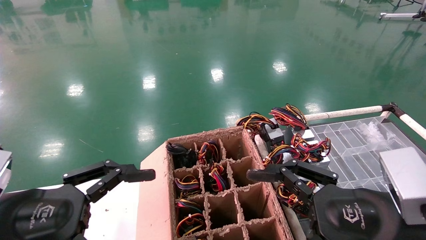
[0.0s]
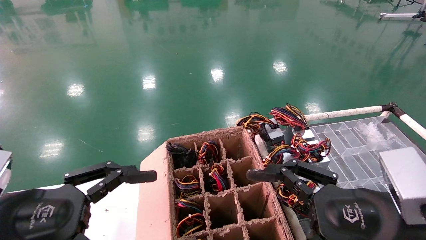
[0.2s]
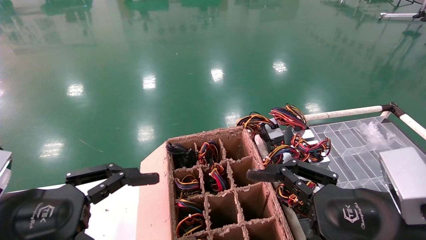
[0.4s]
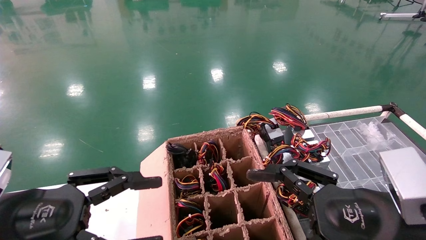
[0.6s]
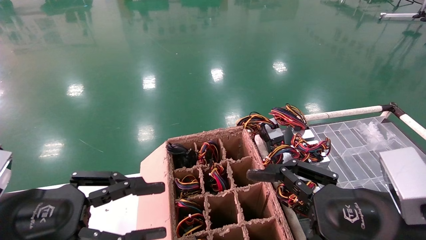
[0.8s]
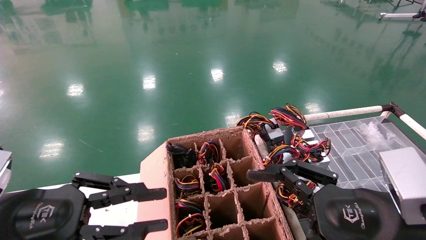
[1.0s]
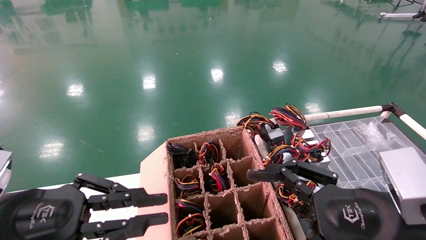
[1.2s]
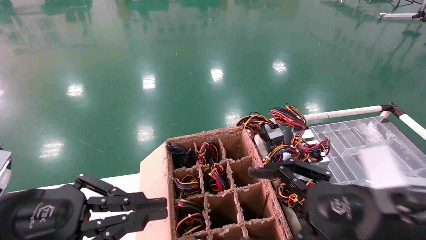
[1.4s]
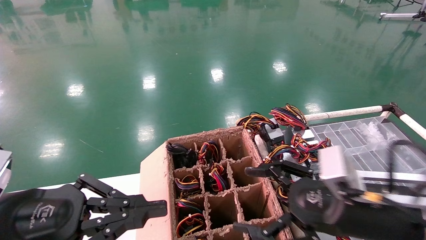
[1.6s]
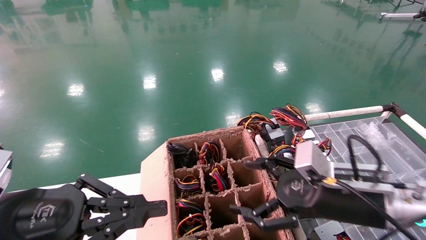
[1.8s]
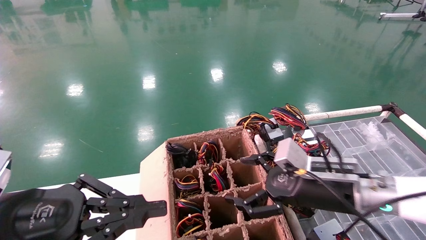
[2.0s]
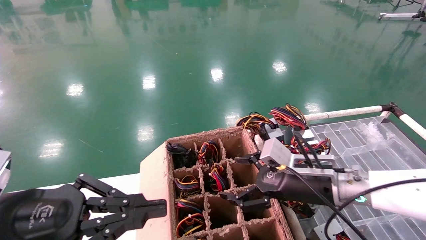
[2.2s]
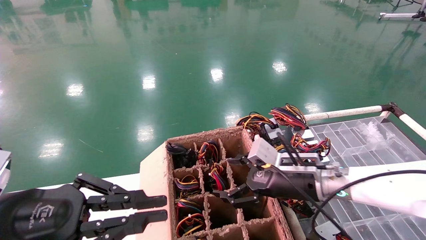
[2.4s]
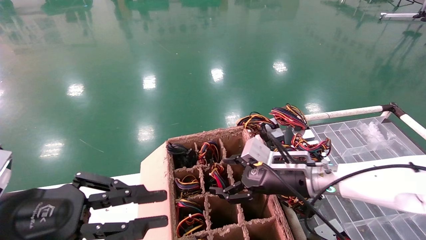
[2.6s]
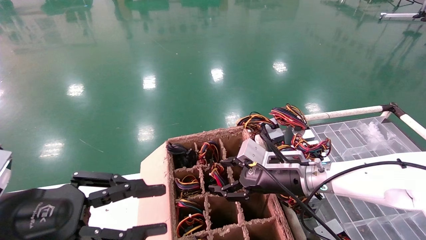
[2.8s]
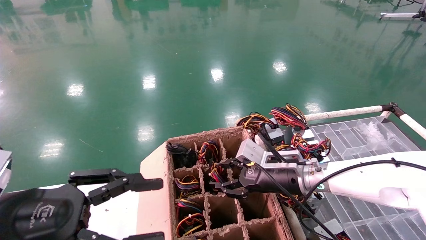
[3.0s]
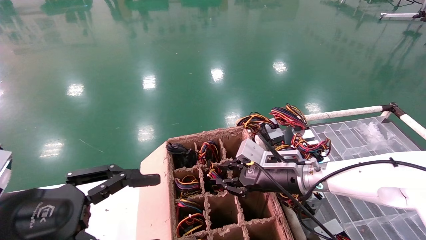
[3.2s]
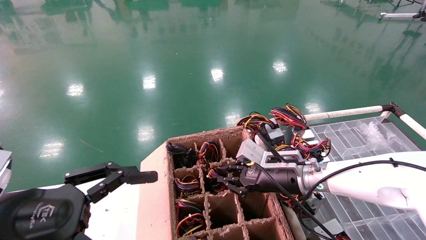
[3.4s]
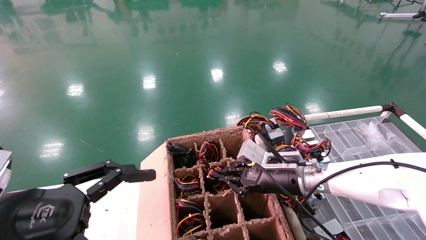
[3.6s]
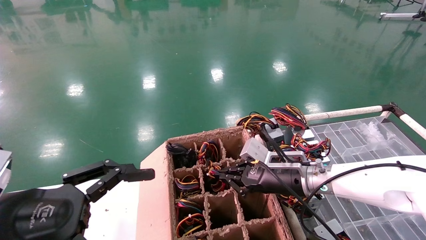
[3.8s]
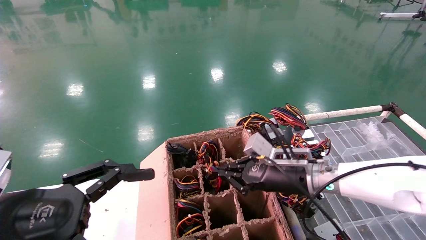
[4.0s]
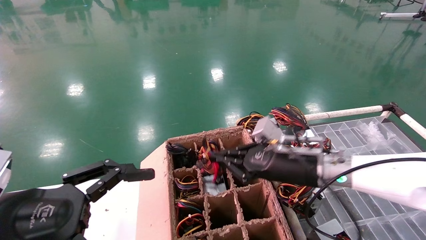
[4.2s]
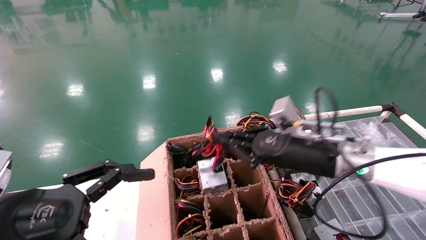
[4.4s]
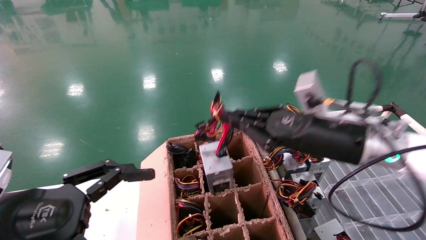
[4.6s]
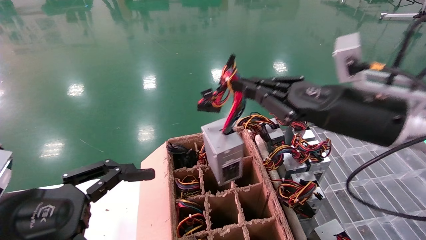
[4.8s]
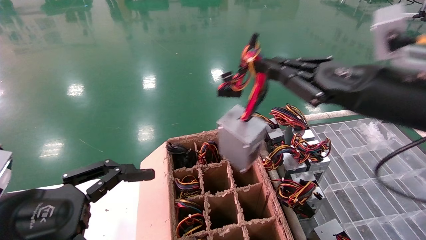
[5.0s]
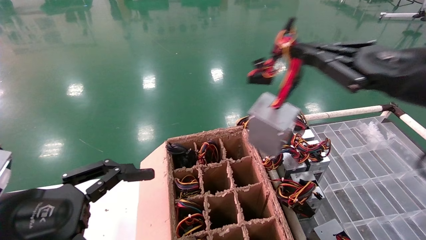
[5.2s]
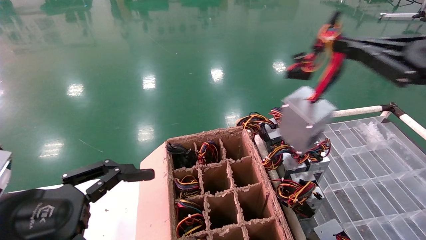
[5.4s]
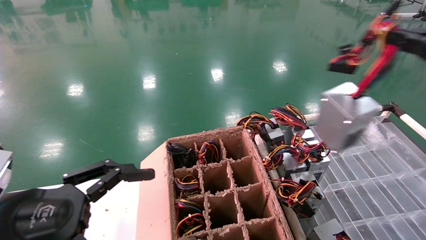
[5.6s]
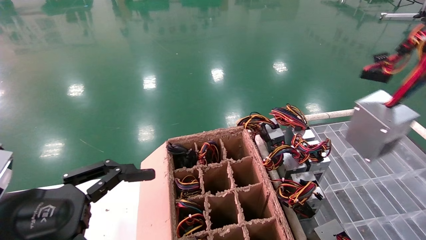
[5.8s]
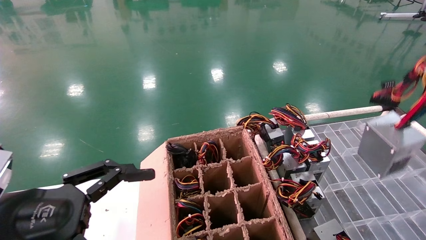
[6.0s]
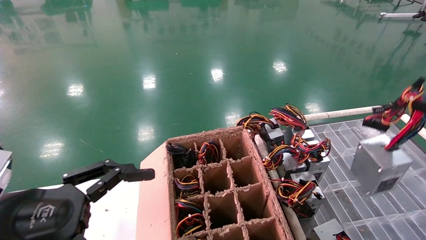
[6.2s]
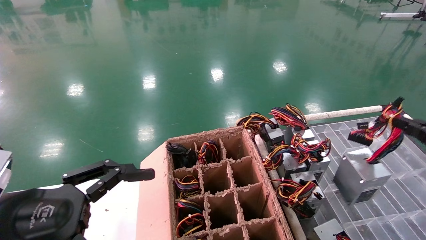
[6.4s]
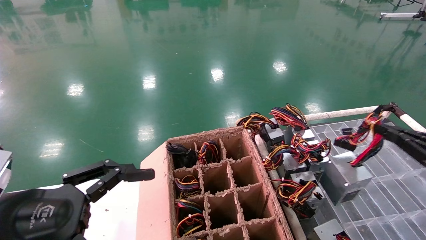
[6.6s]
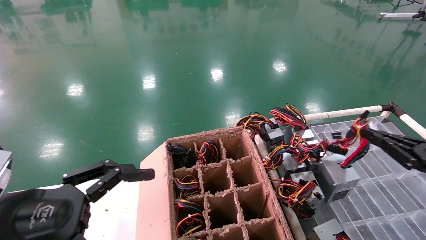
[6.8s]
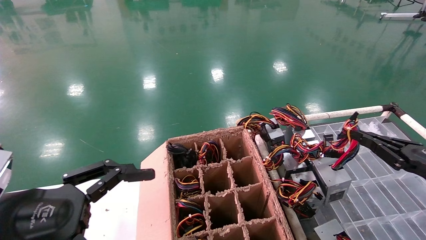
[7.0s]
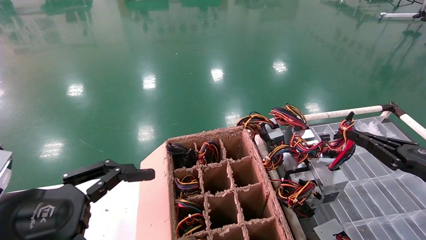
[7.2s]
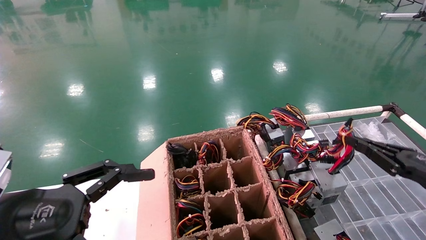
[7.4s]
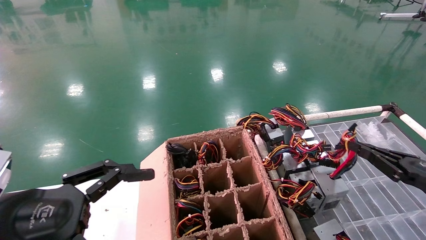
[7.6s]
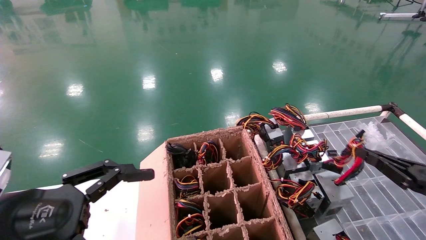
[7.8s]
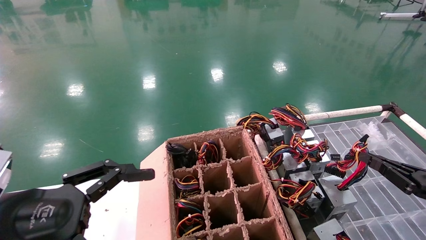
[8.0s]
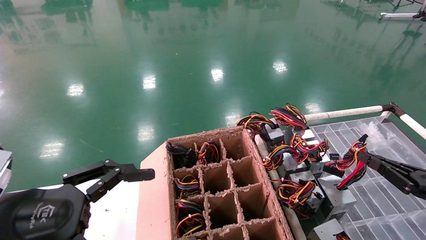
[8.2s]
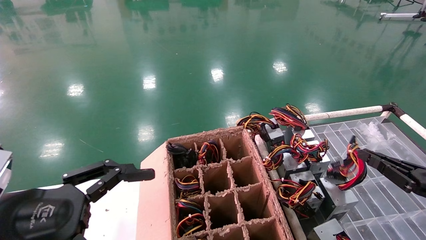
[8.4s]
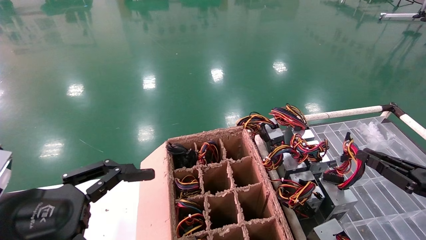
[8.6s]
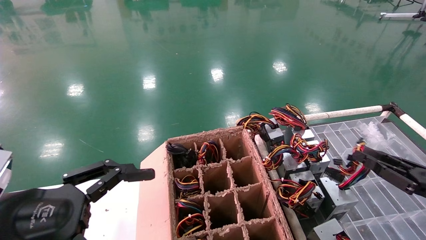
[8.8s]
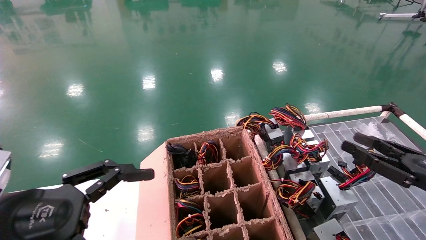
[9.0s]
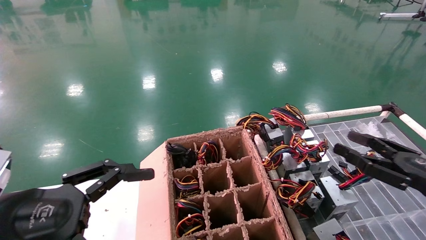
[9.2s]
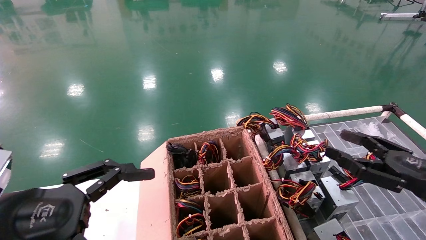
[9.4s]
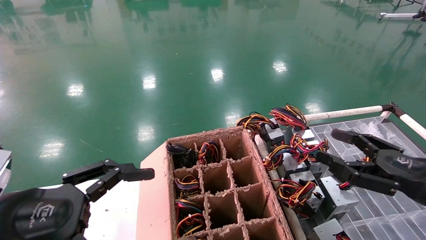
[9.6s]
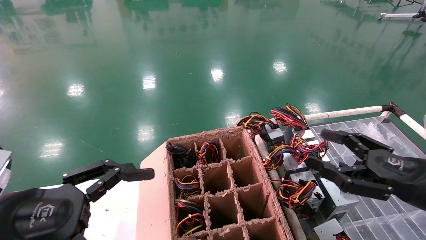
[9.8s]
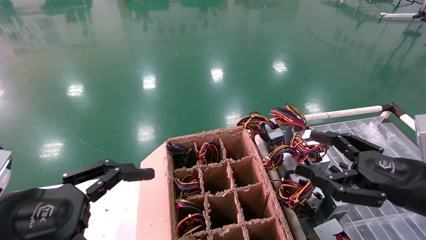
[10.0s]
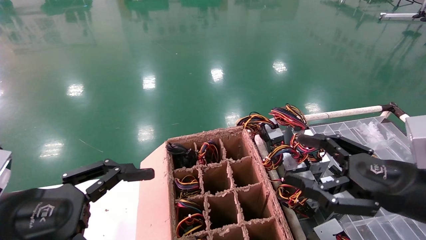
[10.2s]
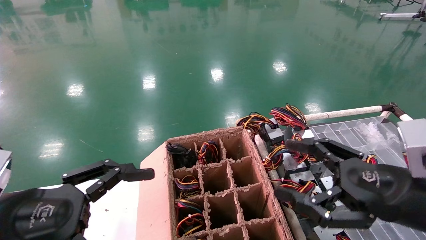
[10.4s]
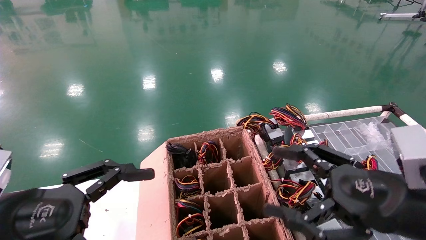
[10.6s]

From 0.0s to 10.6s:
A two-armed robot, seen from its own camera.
Step, from 1.6s to 3.6s: Grab and lift the power supply from the large box.
Step, from 3.8s to 8.4s: Place the power supply on the operating table.
From 0.0s to 1.6s: The left gripper closes up, while the right gripper goes some 5 cm forward.
From 1.6s to 3.0s: The right gripper shifts about 15 cm forward and to the left, and closes up. Meanwhile the left gripper opens.
From 3.0s to 4.6s: The left gripper opens; the right gripper heads upward and backward, covering some 15 cm, and closes.
From 4.6s to 6.0s: The right gripper moves to the right and backward, about 30 cm.
From 6.0s to 7.6s: The right gripper heads downward and forward, covering about 15 cm.
From 7.6s to 9.0s: The right gripper opens up.
From 9.0s to 10.6s: The right gripper goes some 15 cm to the left, and opens.

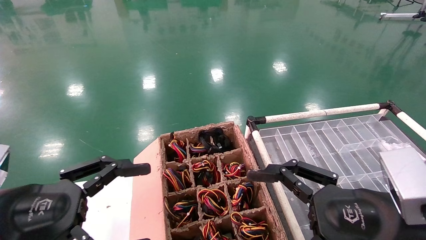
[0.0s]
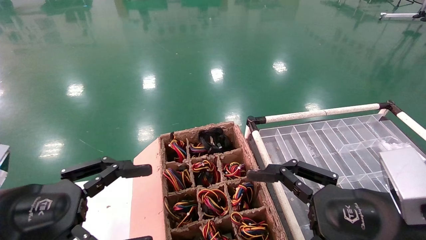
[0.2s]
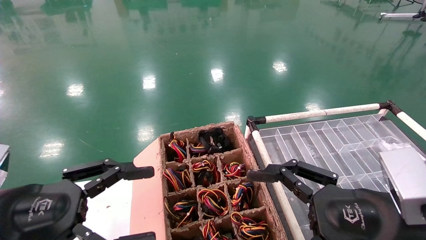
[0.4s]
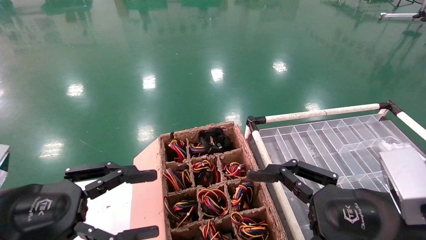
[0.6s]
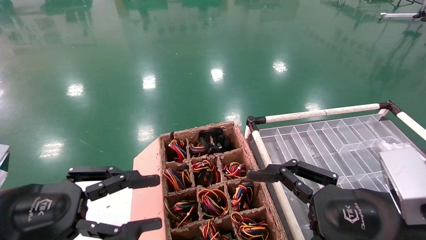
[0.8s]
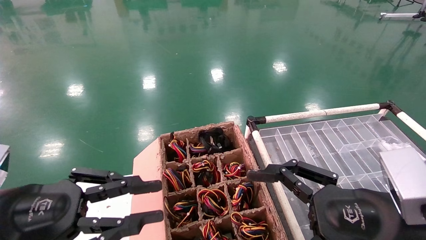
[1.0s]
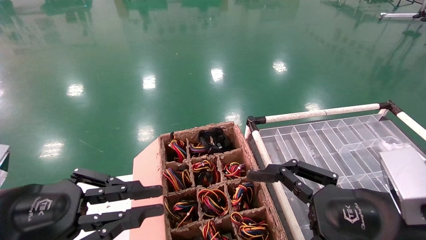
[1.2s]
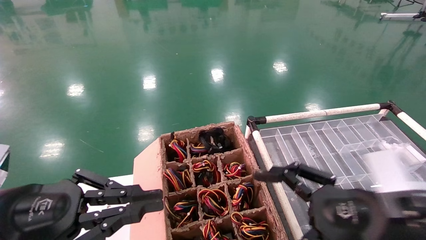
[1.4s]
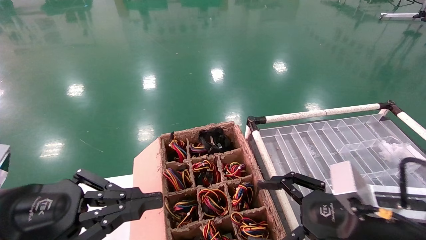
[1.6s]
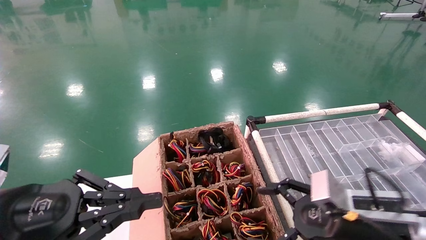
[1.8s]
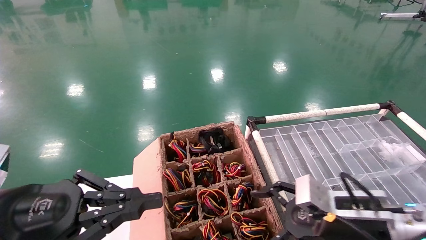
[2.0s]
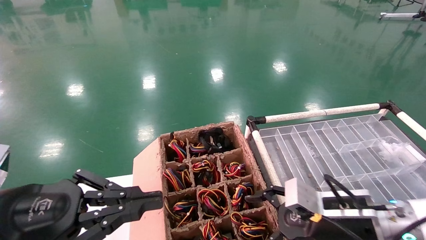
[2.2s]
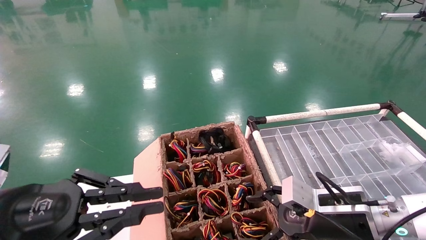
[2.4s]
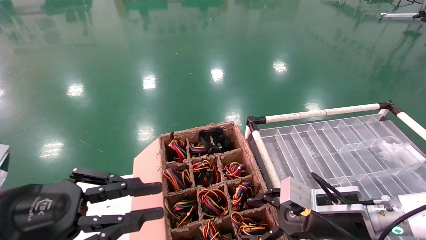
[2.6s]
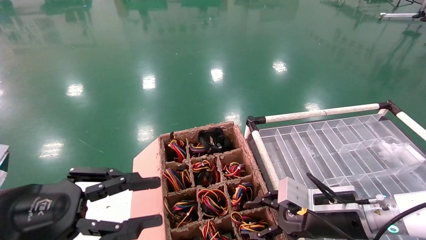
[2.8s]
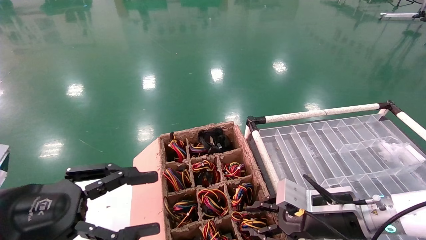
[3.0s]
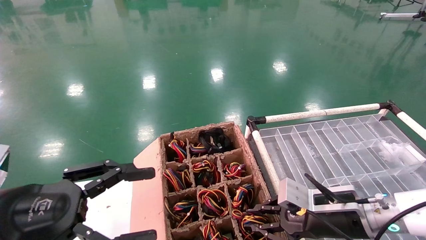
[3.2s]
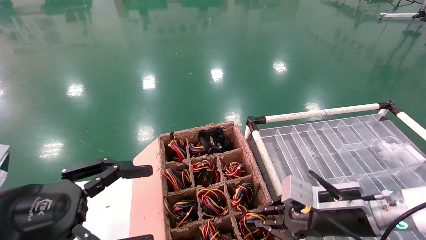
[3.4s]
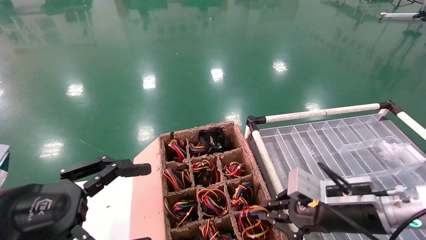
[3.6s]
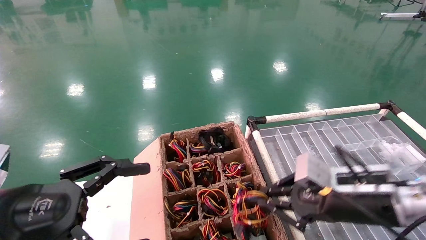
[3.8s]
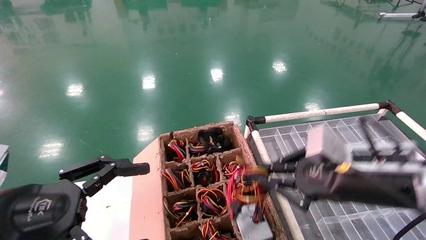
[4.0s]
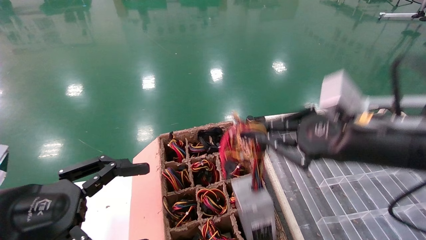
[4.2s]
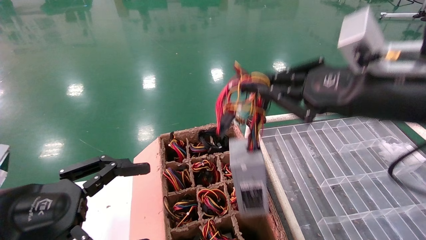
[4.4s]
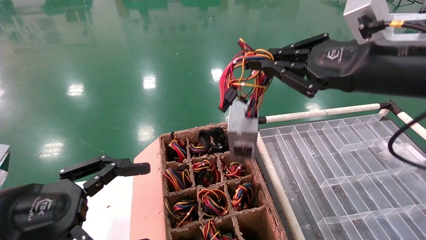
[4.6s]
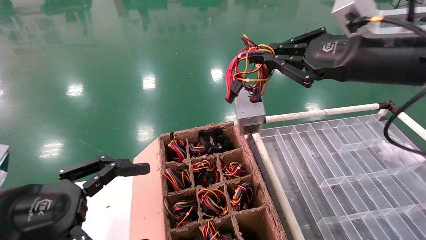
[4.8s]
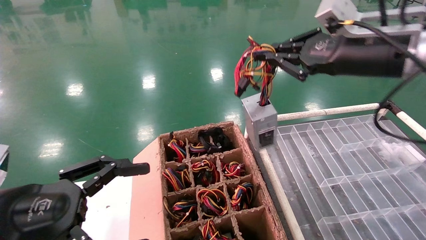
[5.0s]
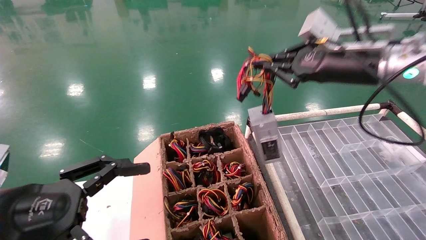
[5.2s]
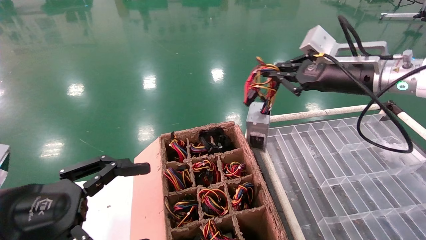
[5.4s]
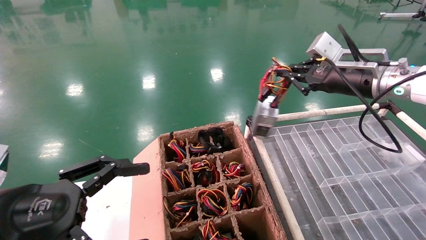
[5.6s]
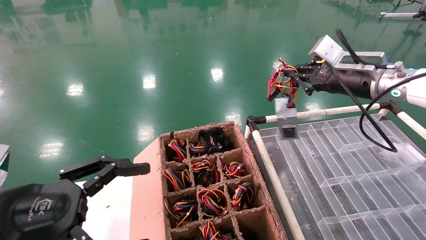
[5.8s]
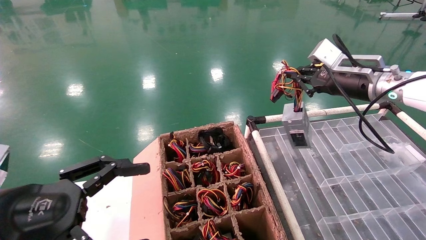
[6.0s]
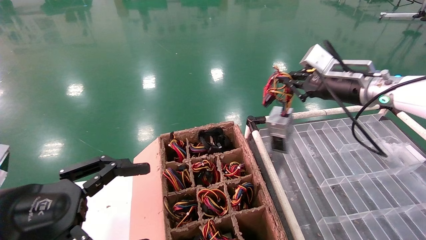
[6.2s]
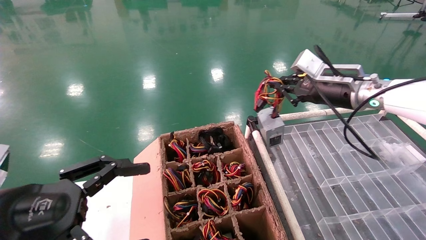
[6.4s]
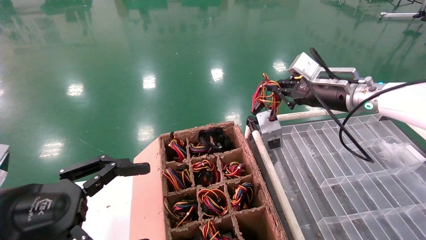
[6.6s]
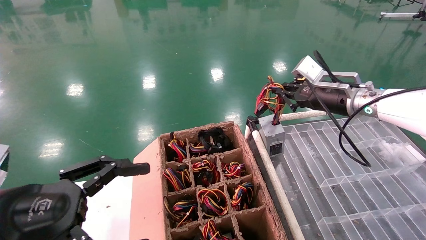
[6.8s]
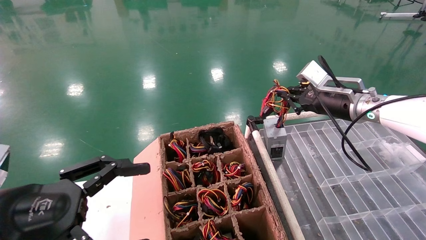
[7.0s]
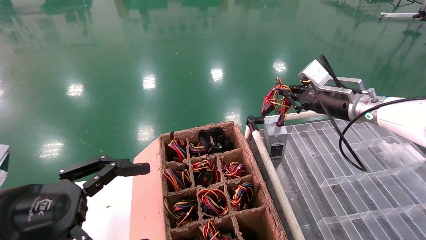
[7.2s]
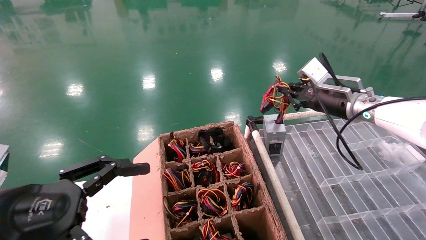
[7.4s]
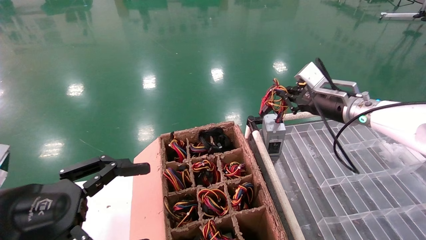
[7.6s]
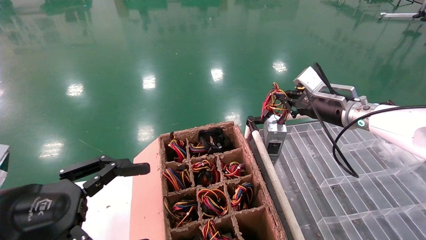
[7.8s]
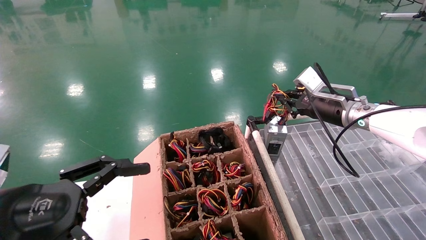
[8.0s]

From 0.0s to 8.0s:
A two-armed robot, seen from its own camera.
Step, from 1.6s to 3.6s: Grab and lift the power supply from the large box.
From 0.0s to 1.6s: The right gripper heads forward, covering some 5 cm. The left gripper closes its fingers.
From 1.6s to 3.2s: The left gripper opens; the right gripper shifts some 10 cm forward, and closes its fingers.
From 3.2s to 4.8s: The right gripper shifts about 25 cm upward; the left gripper opens up.
From 4.8s to 6.4s: The right gripper shifts approximately 15 cm forward and downward.
From 6.4s to 8.0s: The right gripper moves approximately 5 cm.
